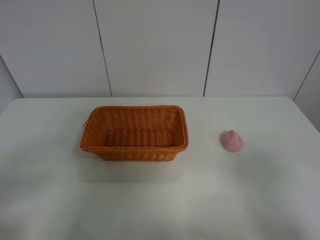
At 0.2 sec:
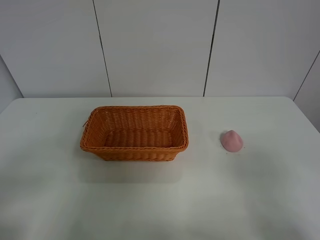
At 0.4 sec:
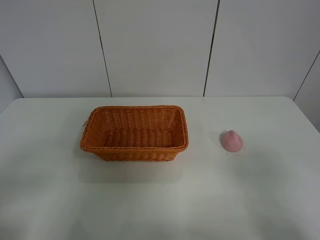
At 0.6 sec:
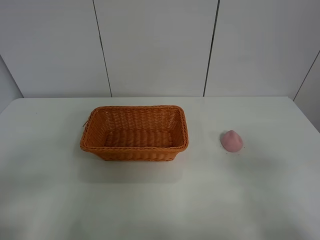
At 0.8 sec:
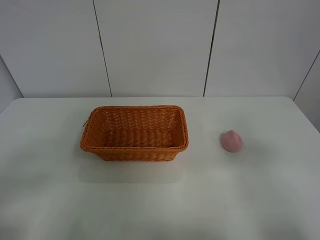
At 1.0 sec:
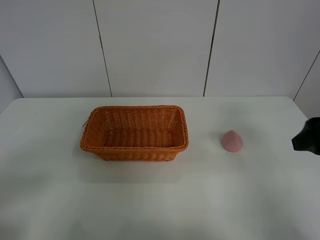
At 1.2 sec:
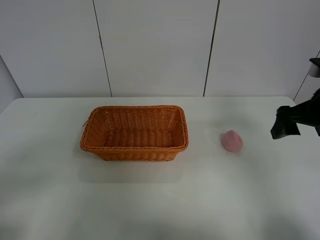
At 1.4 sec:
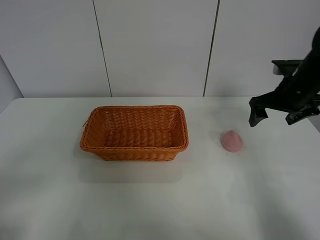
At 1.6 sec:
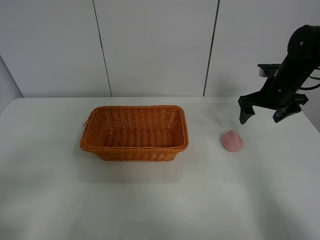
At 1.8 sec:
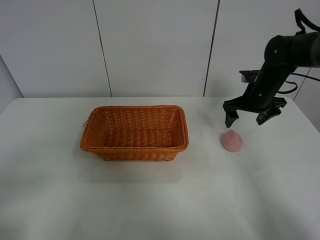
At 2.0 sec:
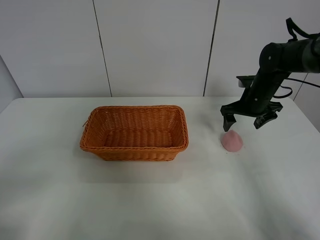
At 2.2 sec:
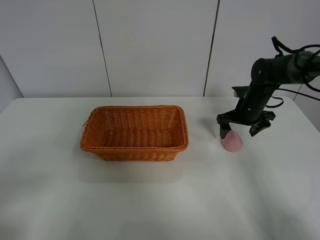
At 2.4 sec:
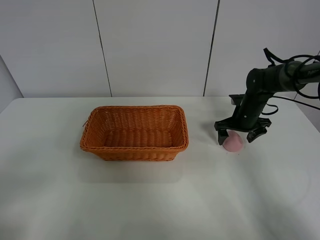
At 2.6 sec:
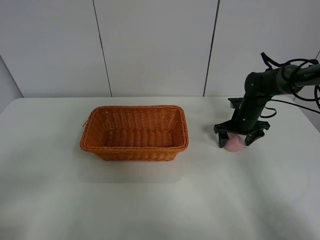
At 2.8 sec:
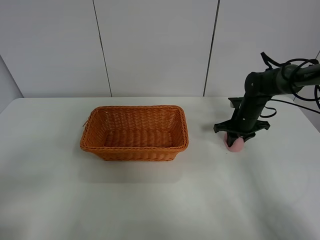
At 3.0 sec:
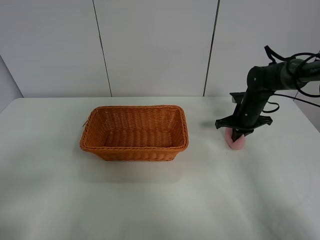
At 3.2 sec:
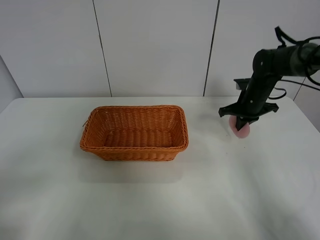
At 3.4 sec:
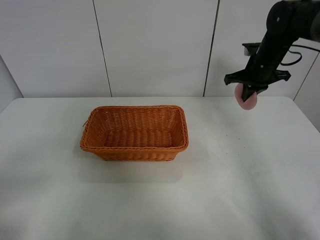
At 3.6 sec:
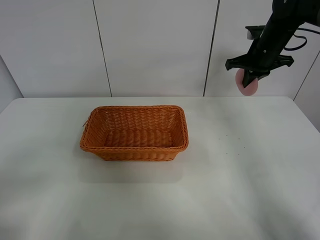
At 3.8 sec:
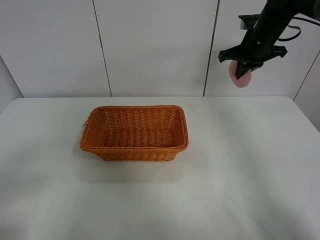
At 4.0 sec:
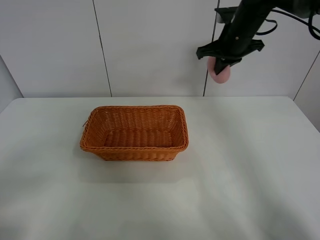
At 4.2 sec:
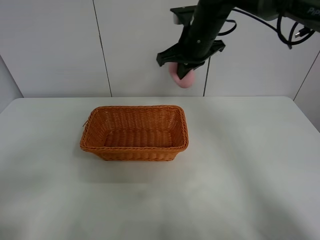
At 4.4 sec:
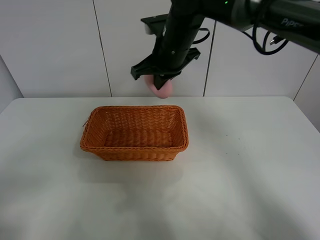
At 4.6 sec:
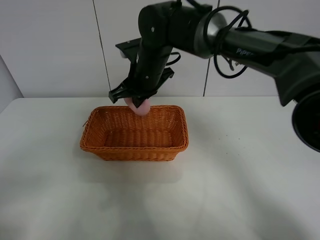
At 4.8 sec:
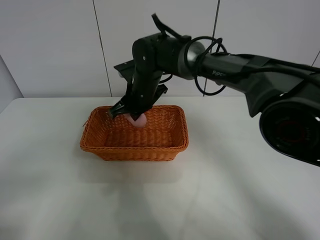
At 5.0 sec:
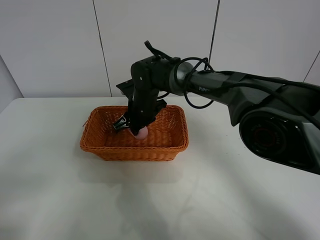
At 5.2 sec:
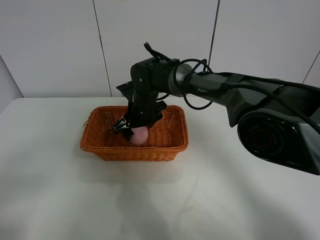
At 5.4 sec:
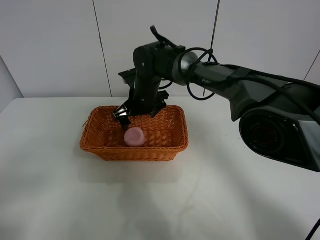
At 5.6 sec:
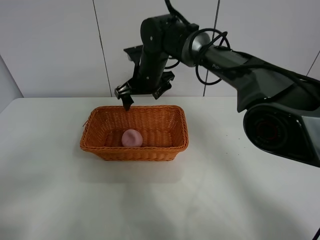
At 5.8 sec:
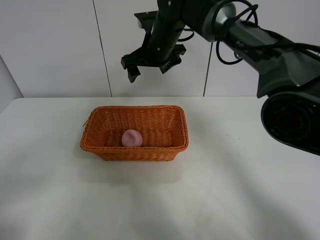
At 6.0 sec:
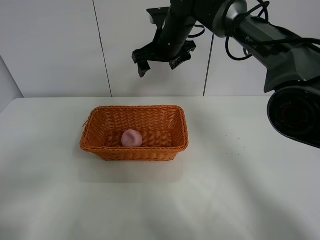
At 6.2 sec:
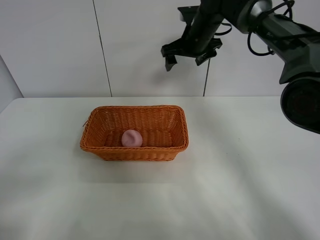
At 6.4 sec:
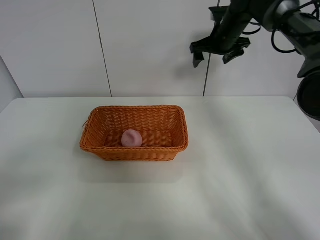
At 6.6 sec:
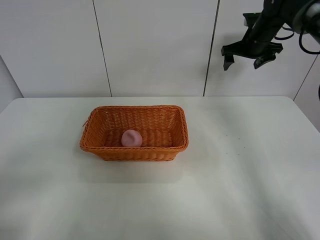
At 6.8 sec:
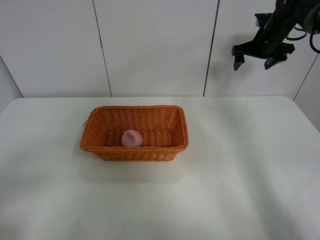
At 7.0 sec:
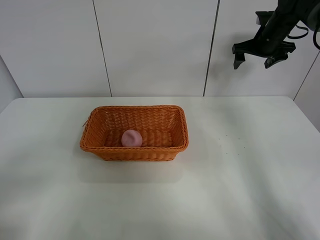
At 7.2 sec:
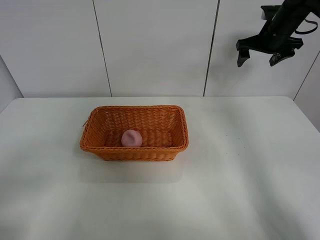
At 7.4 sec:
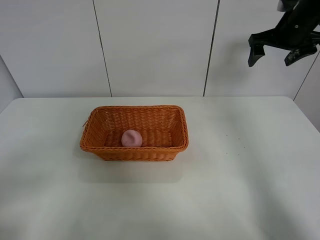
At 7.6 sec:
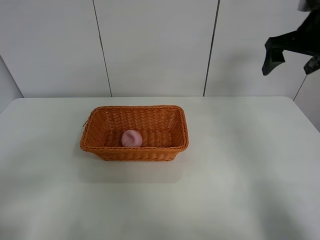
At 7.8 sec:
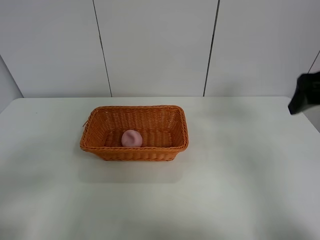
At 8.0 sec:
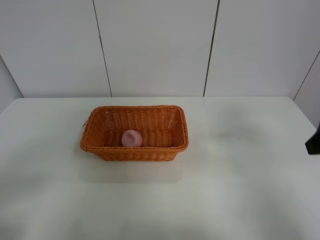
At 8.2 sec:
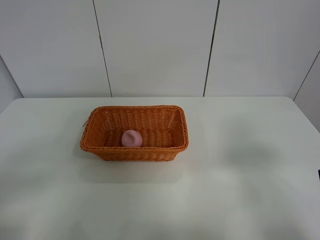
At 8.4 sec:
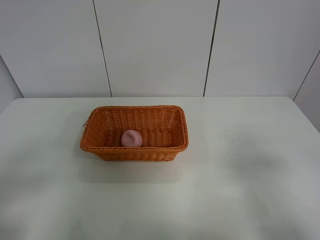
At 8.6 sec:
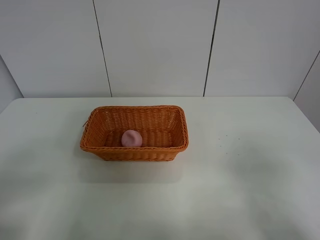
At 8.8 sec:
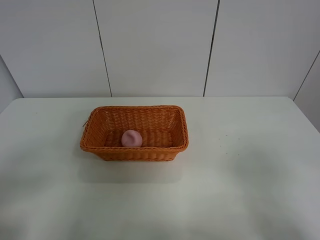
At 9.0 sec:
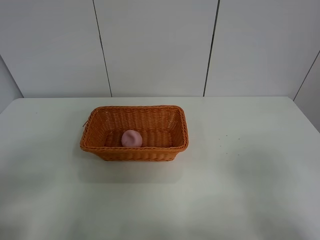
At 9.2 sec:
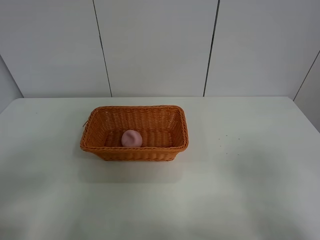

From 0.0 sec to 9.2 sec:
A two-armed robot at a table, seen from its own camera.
Step, from 0.0 sec to 2.8 sec: Grasp the peach with right gripper.
Step, from 3.0 sec to 5.6 sec: Place the peach in the basket with right gripper.
From 0.0 sec to 1.6 sec: The right gripper heads forward, covering about 40 cm.
From 1.6 sec to 3.0 sec: The right gripper moves downward, some 10 cm, and closes.
From 3.0 sec to 4.6 sec: The right gripper moves to the left and upward, roughly 30 cm.
From 4.6 sec to 6.2 sec: The right gripper moves to the right and forward, about 15 cm, and opens up.
From 6.2 sec to 7.6 sec: The right gripper heads to the right and backward, covering about 20 cm.
From 7.6 sec to 9.2 sec: The right gripper moves backward, some 35 cm.

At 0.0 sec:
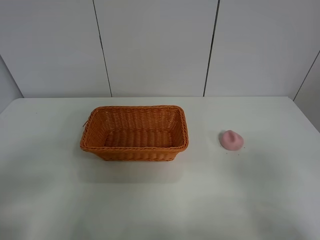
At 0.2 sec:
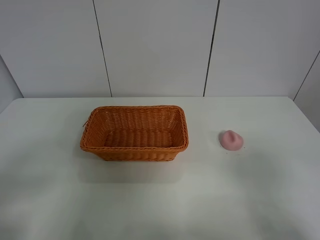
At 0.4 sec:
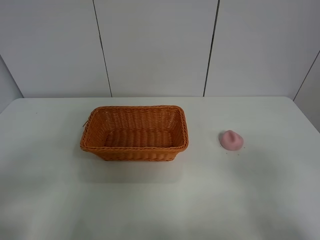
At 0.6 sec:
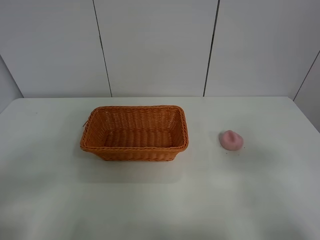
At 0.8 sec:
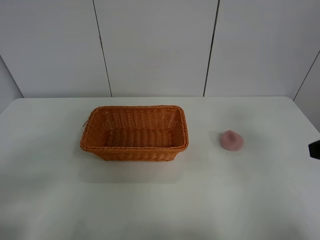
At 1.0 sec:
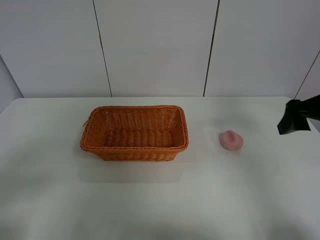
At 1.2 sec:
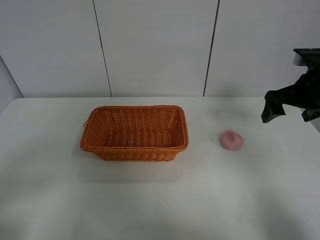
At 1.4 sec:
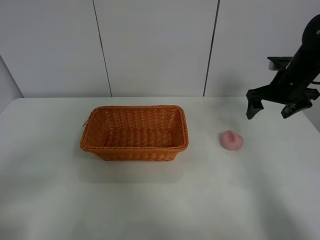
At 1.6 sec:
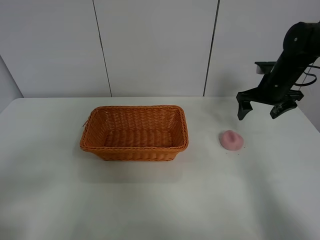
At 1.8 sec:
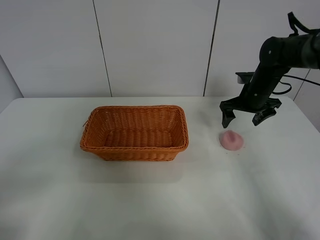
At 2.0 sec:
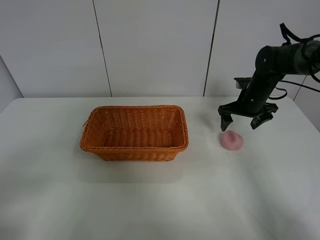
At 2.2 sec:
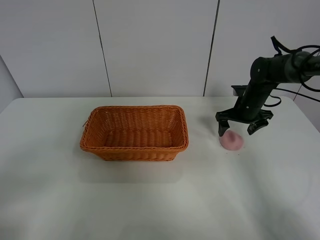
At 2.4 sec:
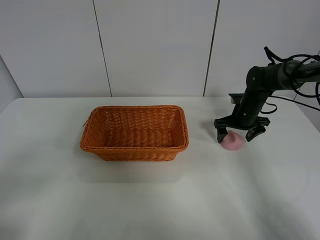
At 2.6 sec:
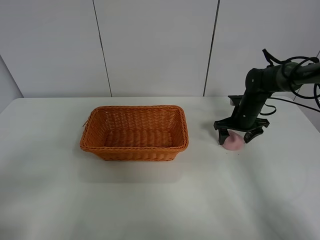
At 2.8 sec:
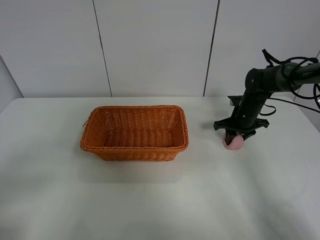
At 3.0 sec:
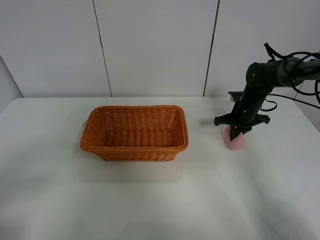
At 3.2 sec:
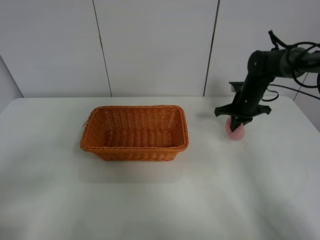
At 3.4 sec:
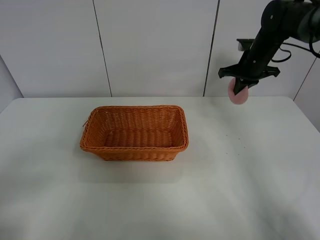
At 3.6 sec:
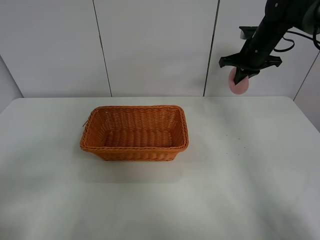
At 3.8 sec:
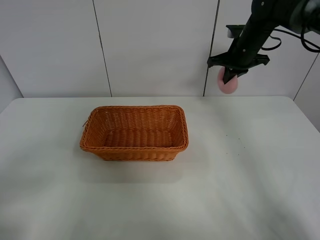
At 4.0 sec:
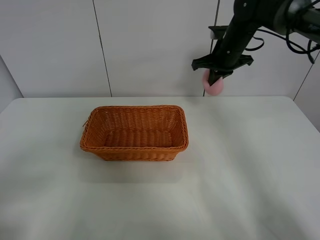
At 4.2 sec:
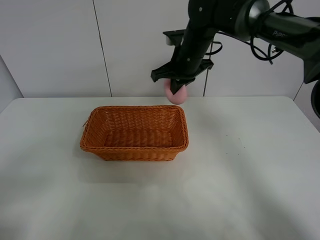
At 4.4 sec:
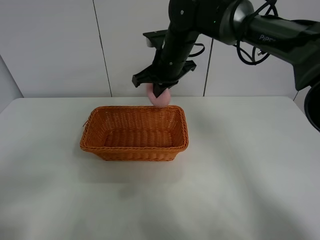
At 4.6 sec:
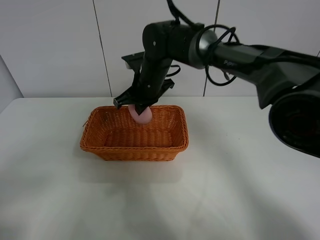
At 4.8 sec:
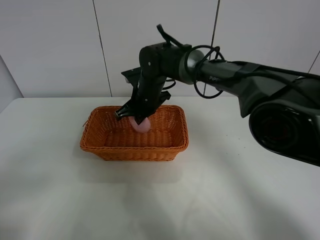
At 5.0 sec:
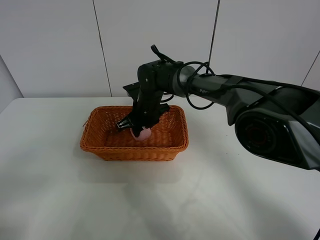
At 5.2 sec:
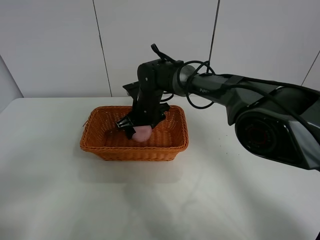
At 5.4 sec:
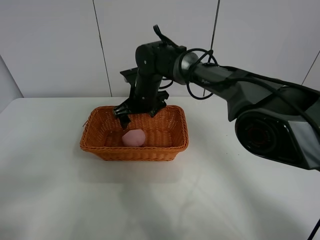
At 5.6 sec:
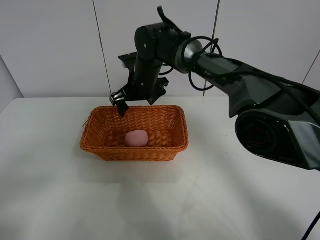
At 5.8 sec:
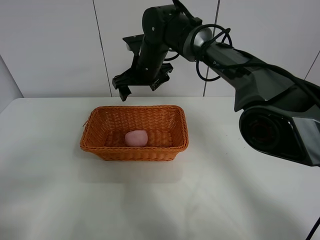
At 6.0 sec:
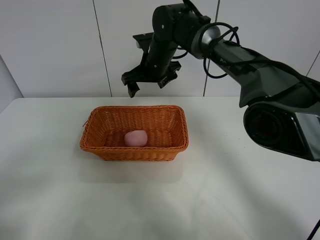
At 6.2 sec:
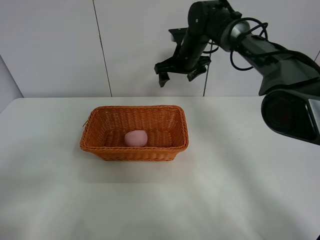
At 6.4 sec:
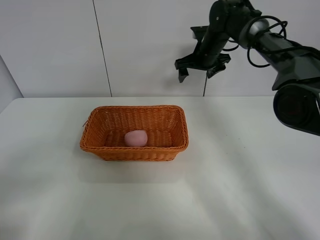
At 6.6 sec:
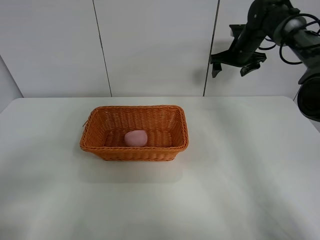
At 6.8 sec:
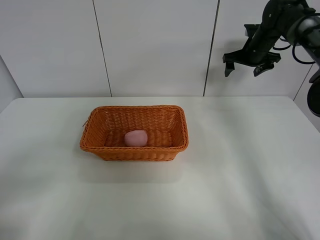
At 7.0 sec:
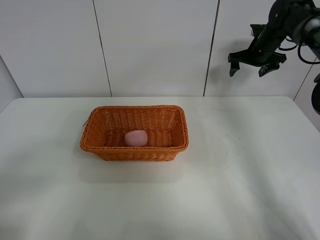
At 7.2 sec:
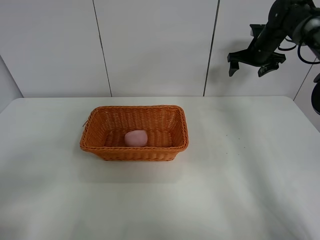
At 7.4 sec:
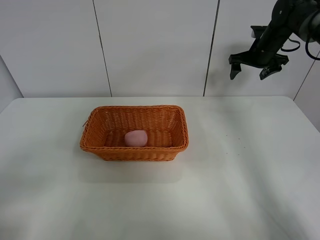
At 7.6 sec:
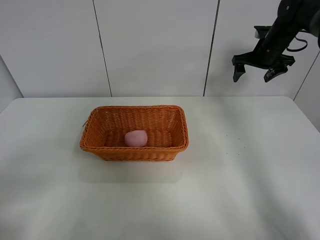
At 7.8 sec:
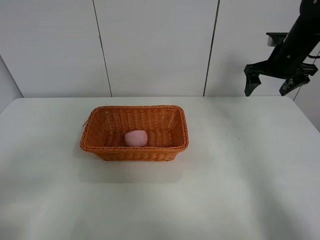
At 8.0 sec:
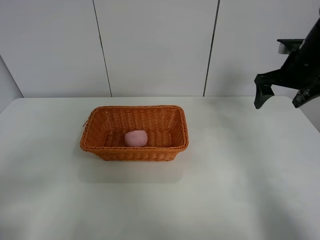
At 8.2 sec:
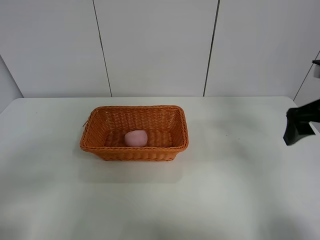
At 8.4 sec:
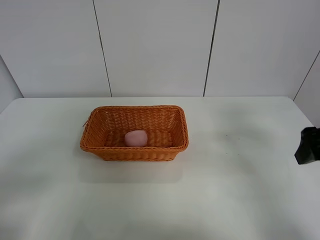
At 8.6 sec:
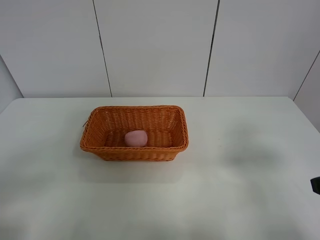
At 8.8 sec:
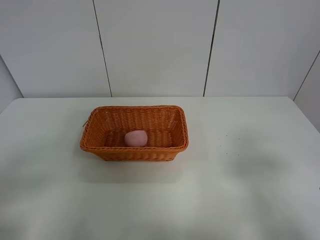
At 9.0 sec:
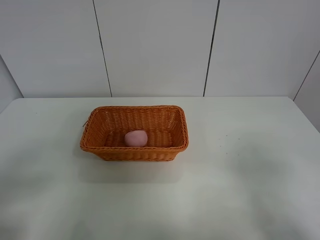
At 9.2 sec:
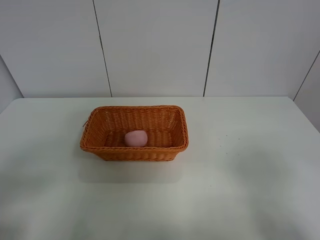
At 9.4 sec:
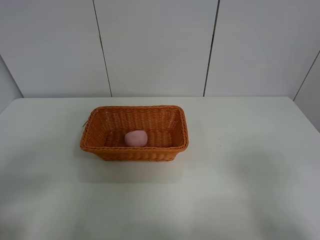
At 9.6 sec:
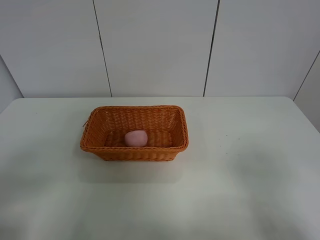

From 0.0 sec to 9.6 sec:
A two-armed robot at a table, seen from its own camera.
Step, from 0.0 sec to 2.8 sec: Grasp the peach with right gripper.
Step, from 3.0 sec to 6.0 sec: Place the peach in the basket with right gripper.
From 0.0 sec to 1.6 sec: The right gripper goes about 40 cm forward.
From 1.6 sec to 3.2 sec: The right gripper closes.
From 3.2 sec to 4.8 sec: The right gripper goes approximately 25 cm to the left.
From 4.8 sec to 6.4 sec: The right gripper goes about 25 cm to the right, forward and upward, and opens its fingers.
From 6.4 sec to 8.0 sec: The right gripper moves backward and to the right, some 20 cm.
From 8.0 sec to 9.6 sec: The right gripper shifts approximately 35 cm backward.
